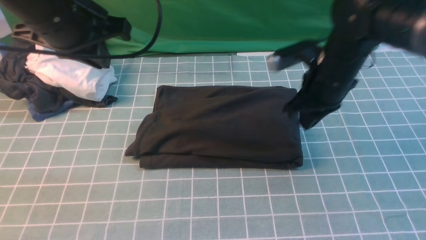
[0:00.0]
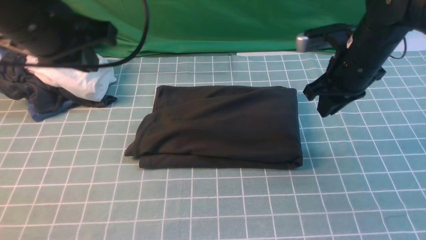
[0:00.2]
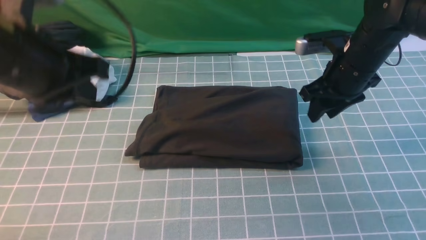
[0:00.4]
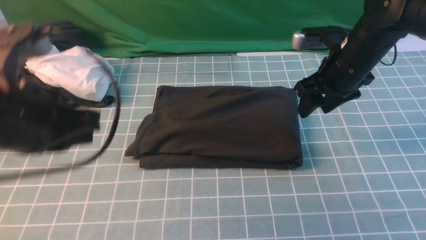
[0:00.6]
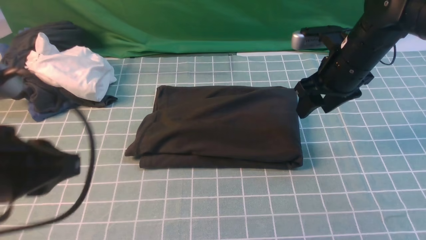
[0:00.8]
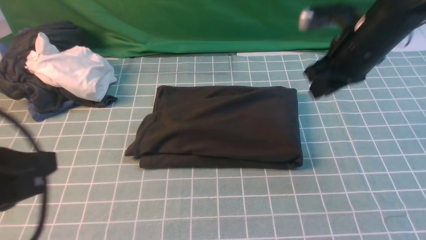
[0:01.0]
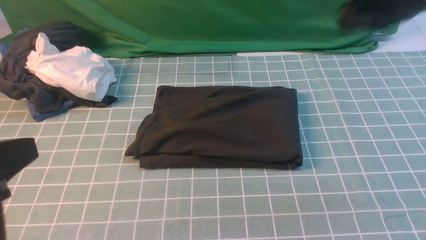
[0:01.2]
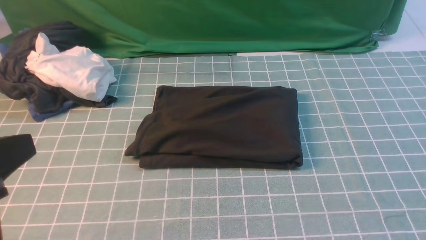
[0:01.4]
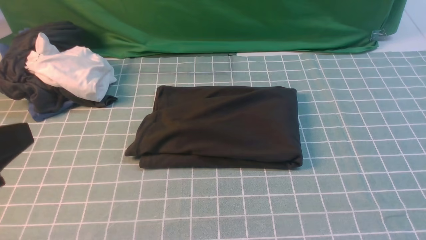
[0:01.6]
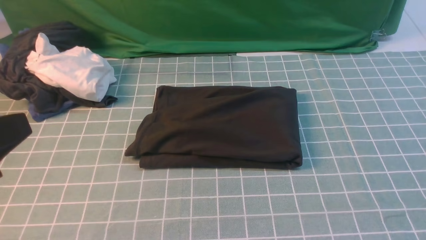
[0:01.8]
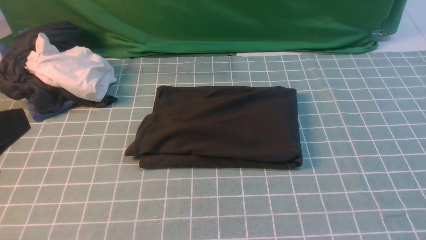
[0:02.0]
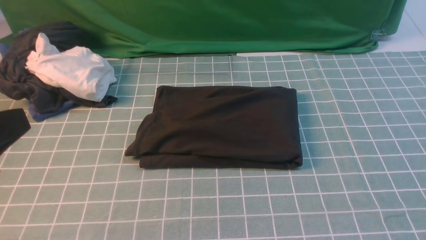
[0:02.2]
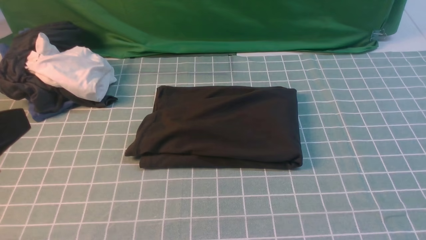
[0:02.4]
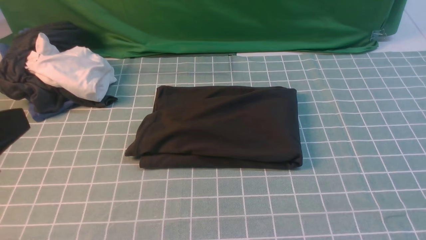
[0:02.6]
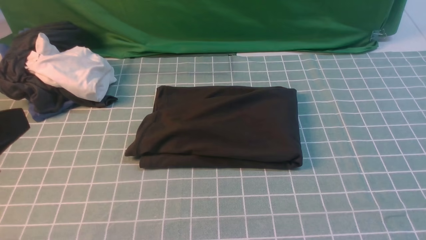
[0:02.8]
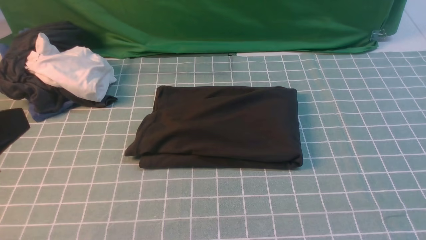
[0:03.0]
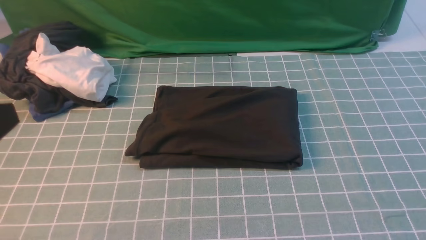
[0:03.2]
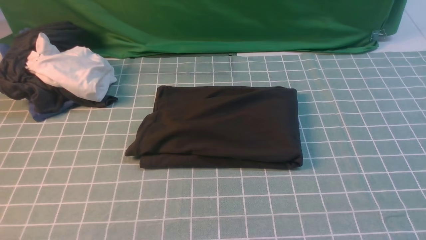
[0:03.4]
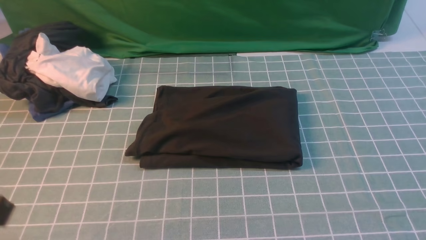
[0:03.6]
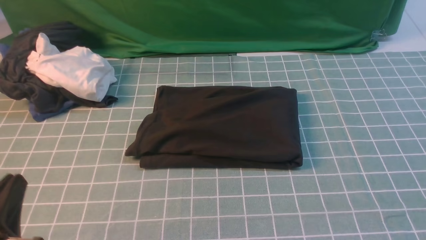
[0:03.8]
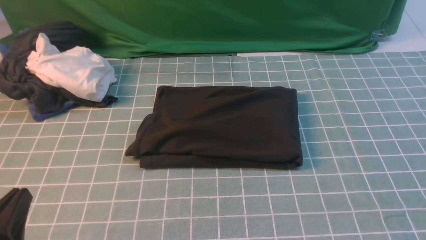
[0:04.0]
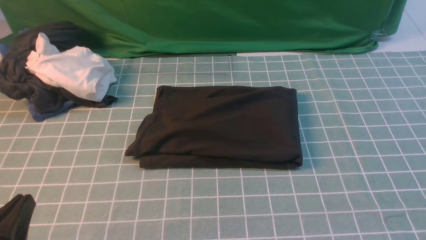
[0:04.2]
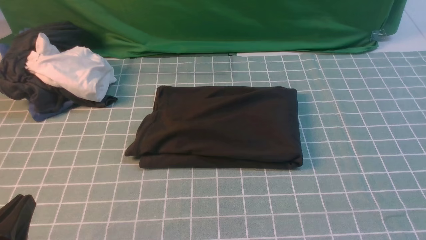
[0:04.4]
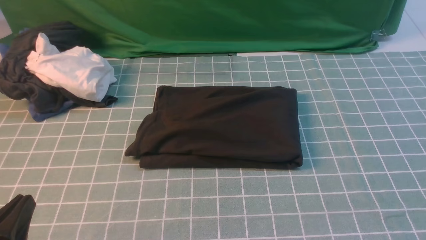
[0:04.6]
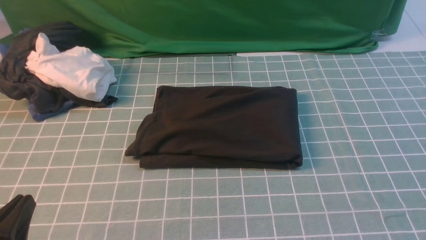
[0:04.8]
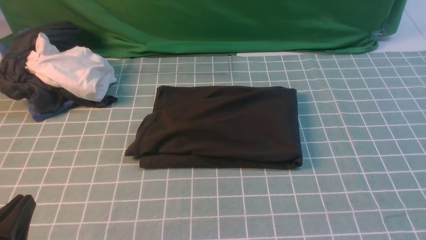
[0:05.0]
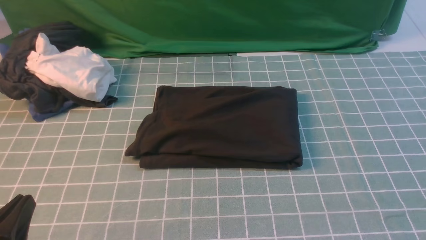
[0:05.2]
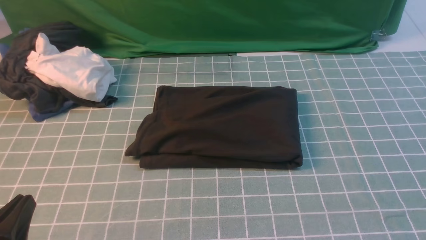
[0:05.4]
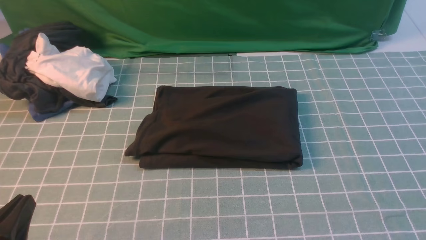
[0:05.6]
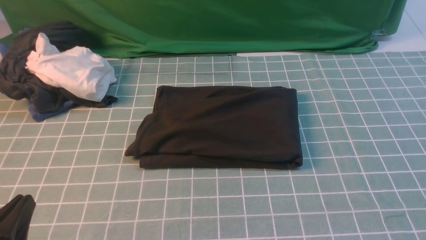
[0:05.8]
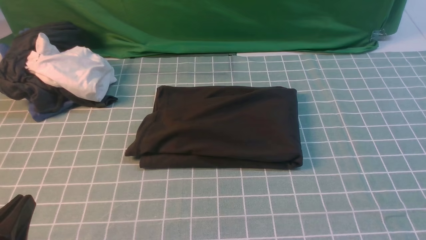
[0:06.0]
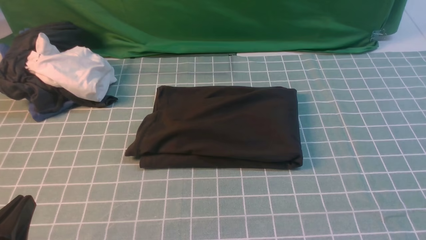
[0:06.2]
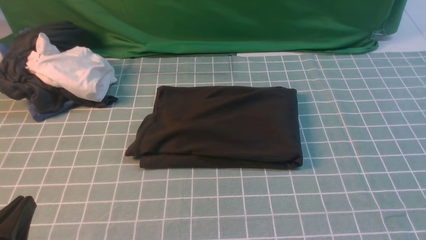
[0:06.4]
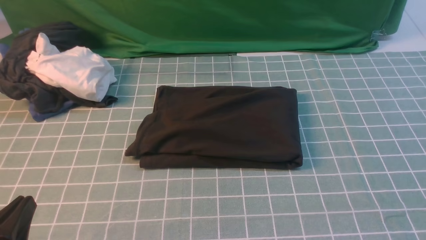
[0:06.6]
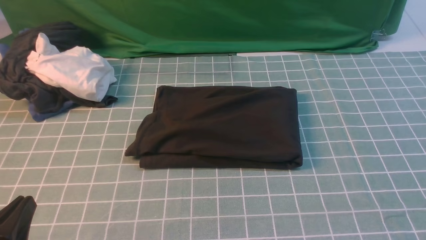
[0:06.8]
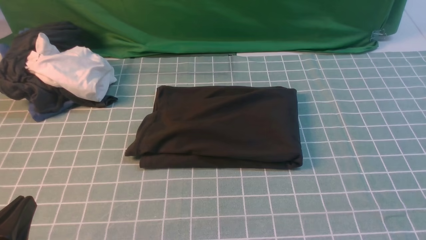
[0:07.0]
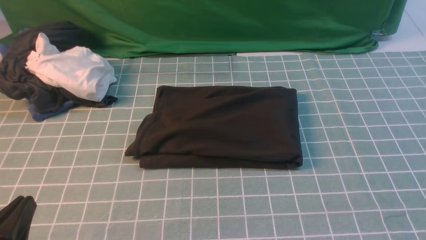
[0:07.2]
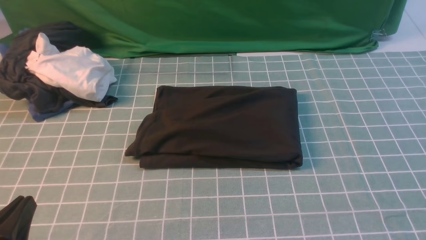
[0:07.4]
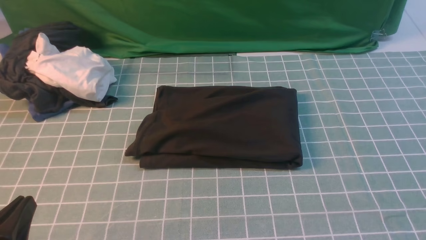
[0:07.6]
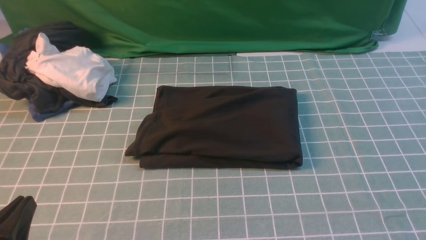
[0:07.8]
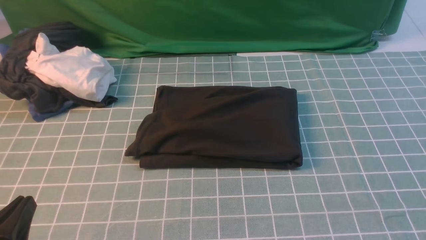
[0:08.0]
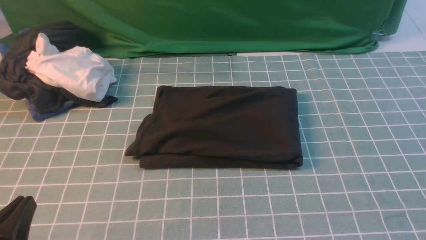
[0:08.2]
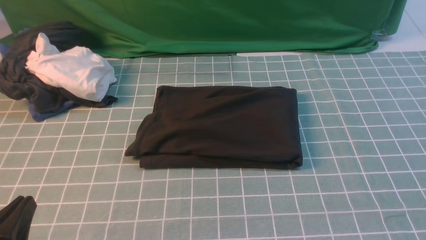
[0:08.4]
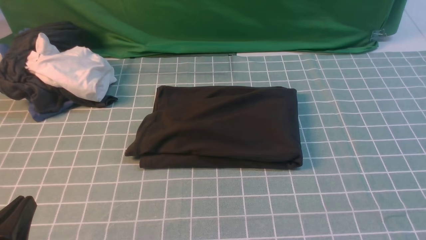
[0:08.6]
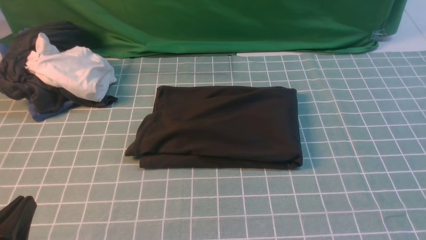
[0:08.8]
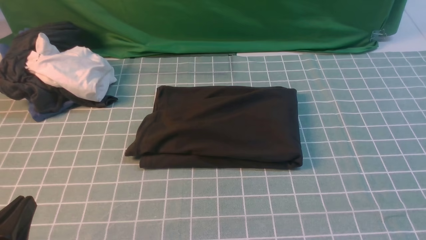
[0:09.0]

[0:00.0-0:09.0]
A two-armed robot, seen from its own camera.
0:00.0 to 0:01.6: The left gripper heads backward, covering roughly 25 cm. The right gripper is displaced upward, backward and to the right by some 40 cm, and opens, then closes again.
0:03.0 to 0:04.4: The left gripper is displaced downward by approximately 20 cm.
0:07.6 to 0:09.0: Both grippers stay about where they are.
